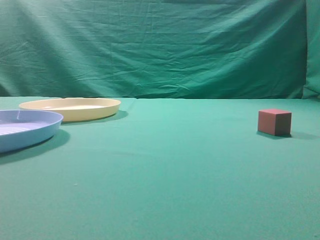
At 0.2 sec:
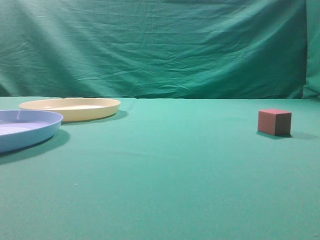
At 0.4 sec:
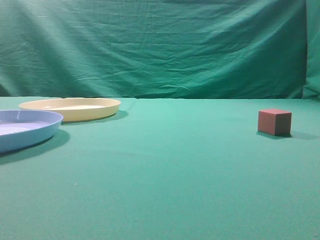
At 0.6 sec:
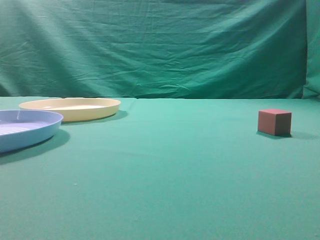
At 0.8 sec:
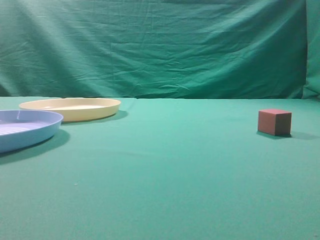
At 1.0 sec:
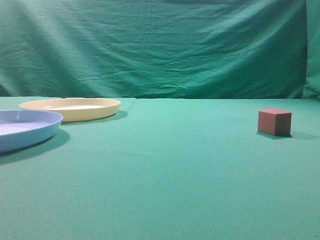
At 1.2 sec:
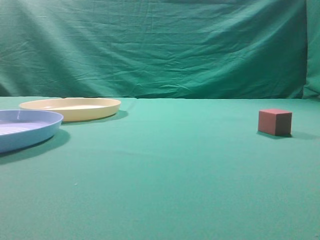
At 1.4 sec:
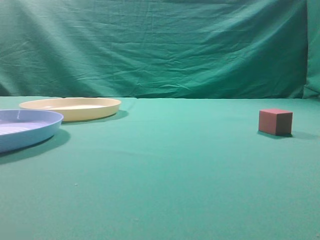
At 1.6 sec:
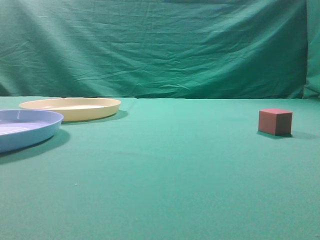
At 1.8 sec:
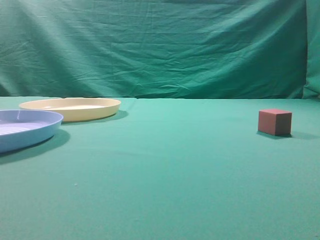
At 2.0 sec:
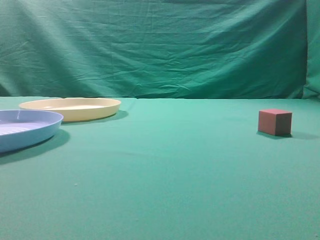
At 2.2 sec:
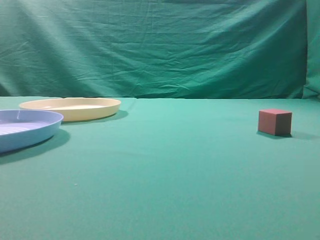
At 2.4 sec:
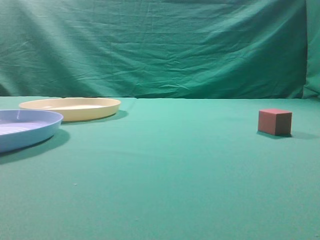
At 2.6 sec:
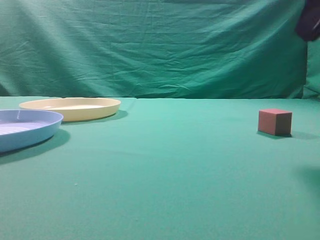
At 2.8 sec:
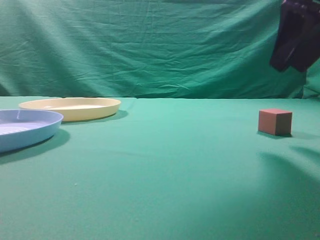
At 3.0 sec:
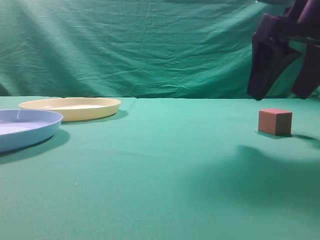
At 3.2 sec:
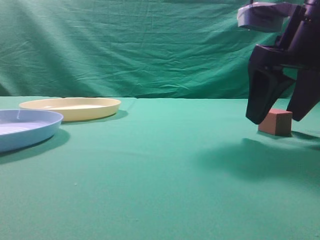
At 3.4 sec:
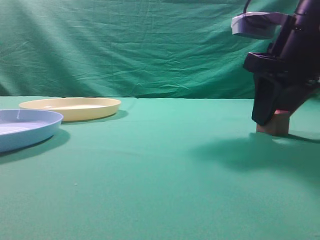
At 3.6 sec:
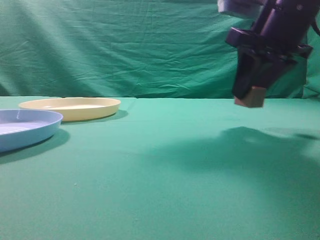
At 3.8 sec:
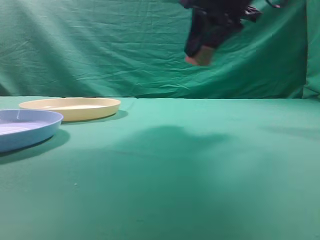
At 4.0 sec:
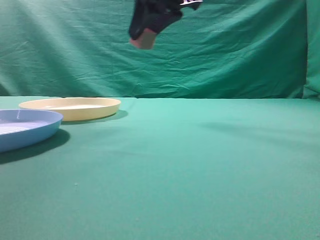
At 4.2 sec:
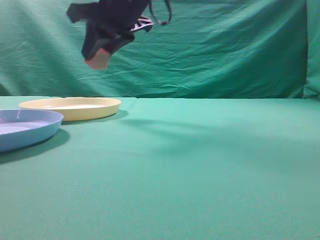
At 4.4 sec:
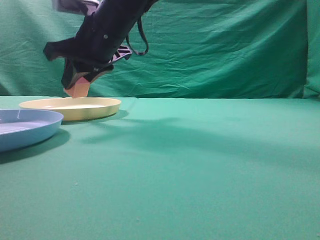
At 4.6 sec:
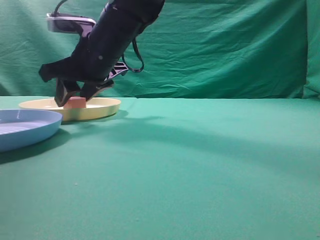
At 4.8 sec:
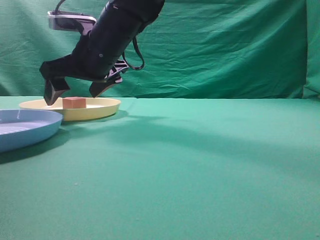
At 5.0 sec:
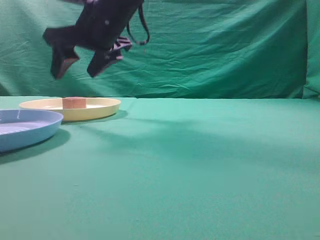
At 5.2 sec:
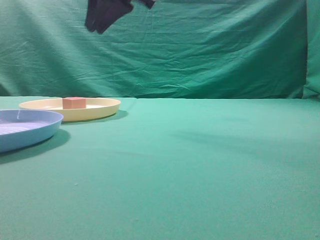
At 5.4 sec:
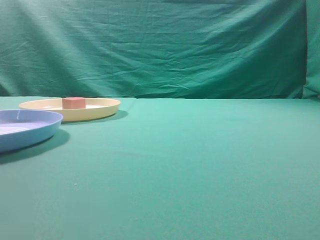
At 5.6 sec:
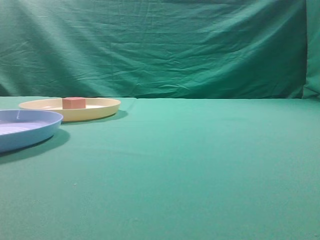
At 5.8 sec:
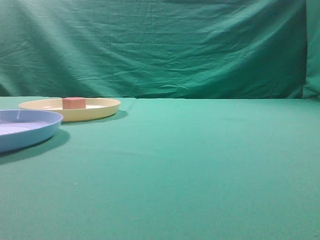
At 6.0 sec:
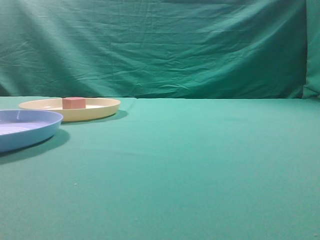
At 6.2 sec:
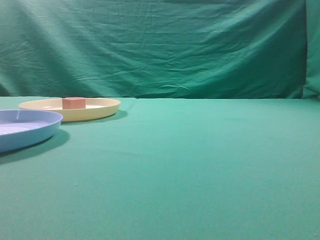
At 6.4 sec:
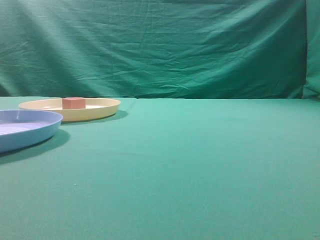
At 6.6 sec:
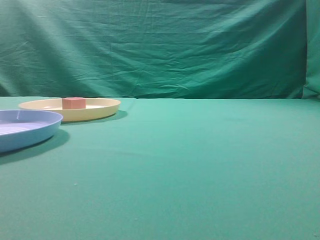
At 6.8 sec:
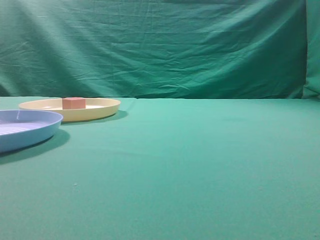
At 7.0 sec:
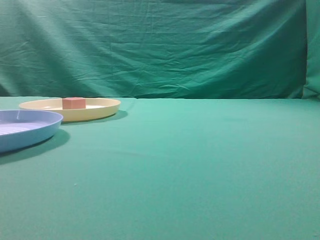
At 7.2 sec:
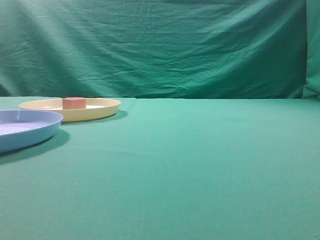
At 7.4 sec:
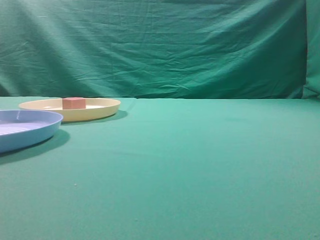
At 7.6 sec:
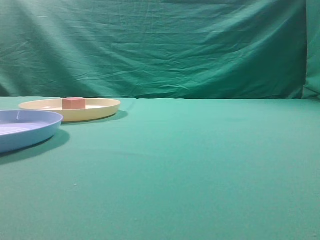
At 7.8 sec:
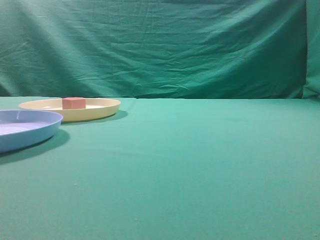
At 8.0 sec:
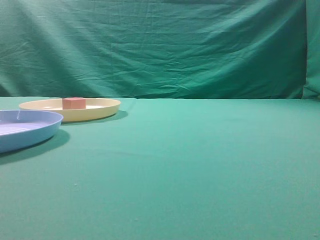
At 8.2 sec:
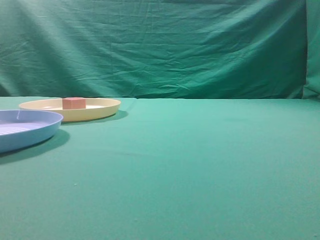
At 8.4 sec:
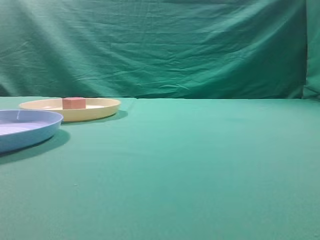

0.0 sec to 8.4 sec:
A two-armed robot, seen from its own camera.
Task of the whole recording: pick up the cube block from the table and put it on the plate.
Step, 0.0 sec to 3.4 sec: Grasp the small cube on the table.
Step, 3.6 sec to 5.0 sec: Place it into the yellow plate.
1.4 sec to 2.8 sec: The right gripper moves forward and to the left, about 25 cm, and opens up.
2.8 sec to 4.2 sec: The right gripper goes about 25 cm to the left and forward, and opens, then closes again.
4.2 sec to 5.6 sec: The right gripper heads upward and to the right, covering roughly 25 cm, and closes its fingers.

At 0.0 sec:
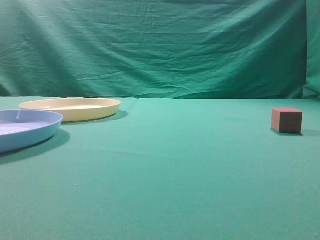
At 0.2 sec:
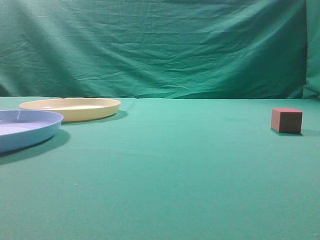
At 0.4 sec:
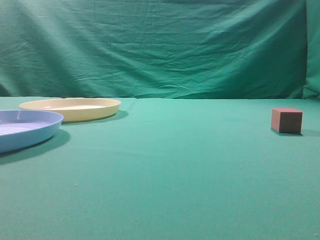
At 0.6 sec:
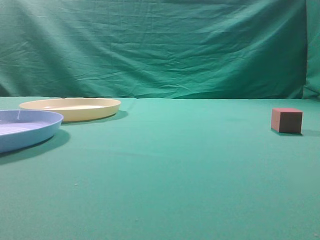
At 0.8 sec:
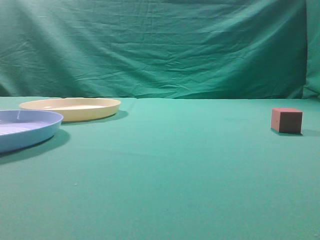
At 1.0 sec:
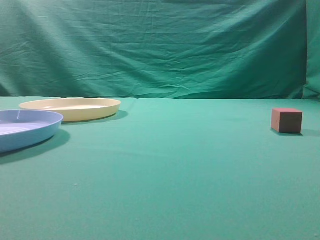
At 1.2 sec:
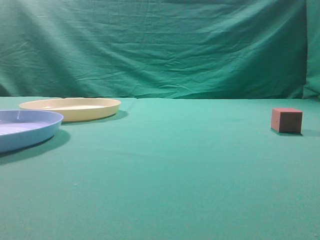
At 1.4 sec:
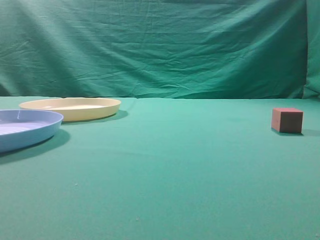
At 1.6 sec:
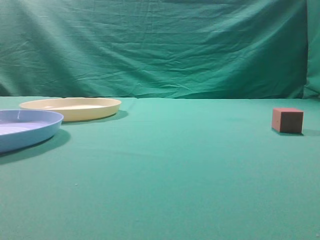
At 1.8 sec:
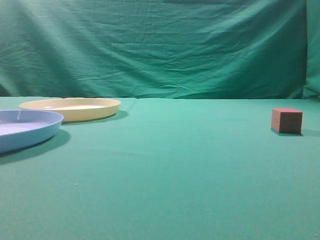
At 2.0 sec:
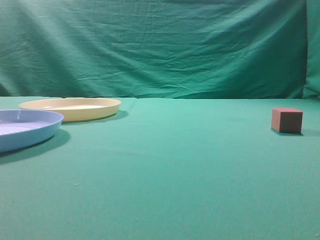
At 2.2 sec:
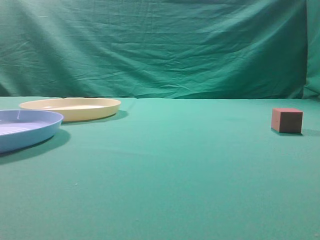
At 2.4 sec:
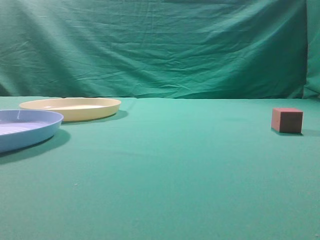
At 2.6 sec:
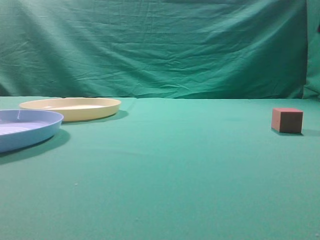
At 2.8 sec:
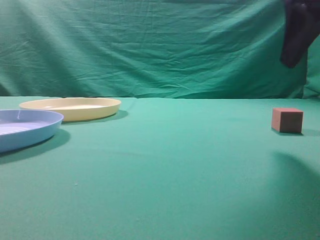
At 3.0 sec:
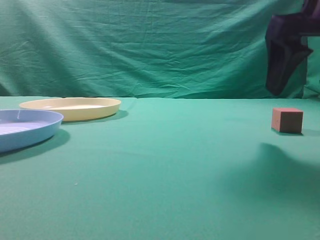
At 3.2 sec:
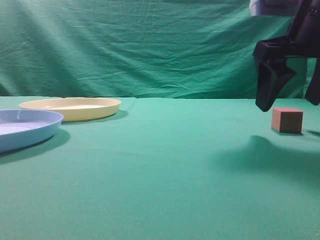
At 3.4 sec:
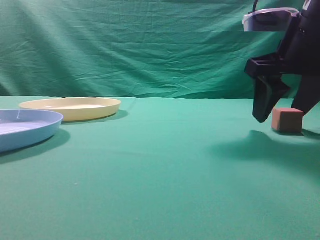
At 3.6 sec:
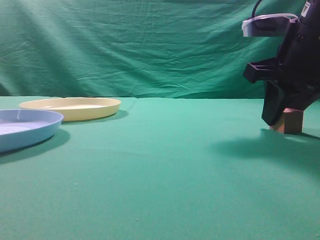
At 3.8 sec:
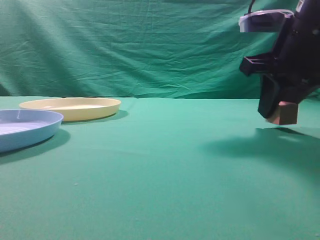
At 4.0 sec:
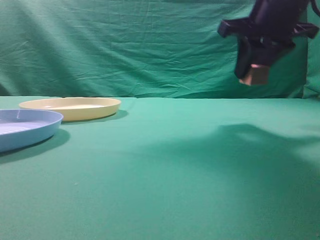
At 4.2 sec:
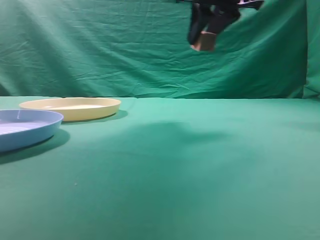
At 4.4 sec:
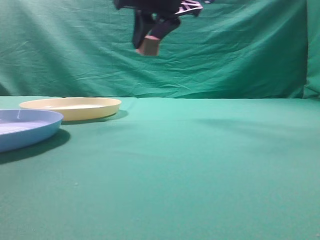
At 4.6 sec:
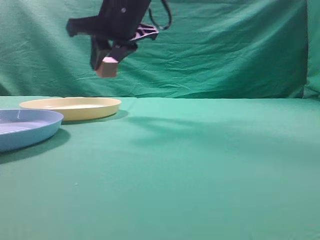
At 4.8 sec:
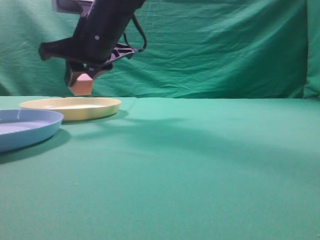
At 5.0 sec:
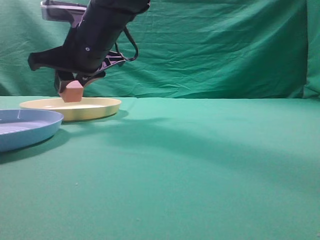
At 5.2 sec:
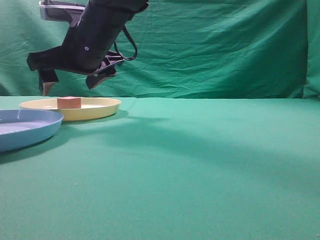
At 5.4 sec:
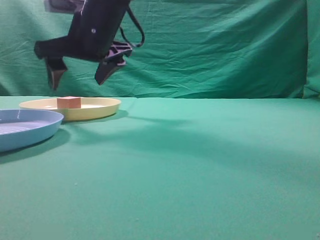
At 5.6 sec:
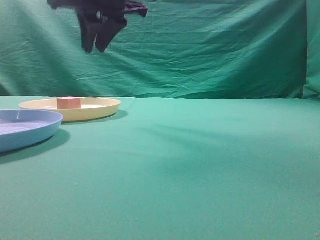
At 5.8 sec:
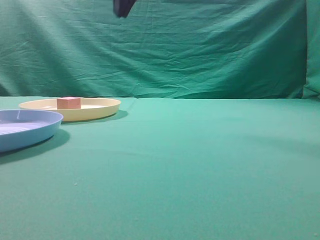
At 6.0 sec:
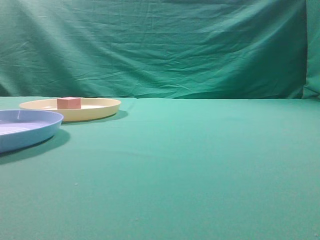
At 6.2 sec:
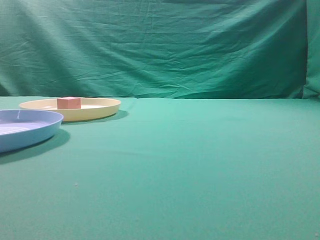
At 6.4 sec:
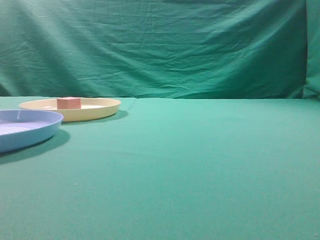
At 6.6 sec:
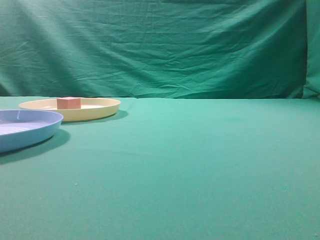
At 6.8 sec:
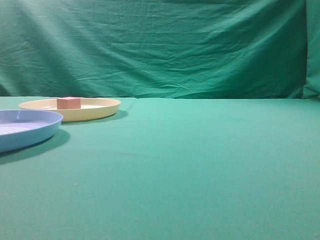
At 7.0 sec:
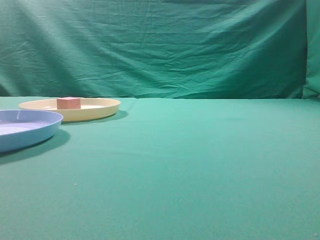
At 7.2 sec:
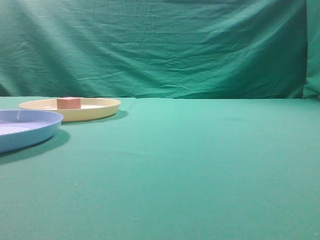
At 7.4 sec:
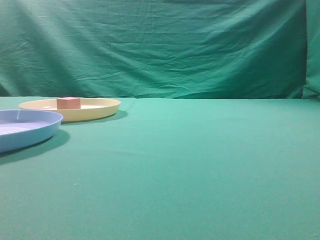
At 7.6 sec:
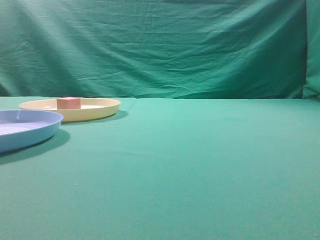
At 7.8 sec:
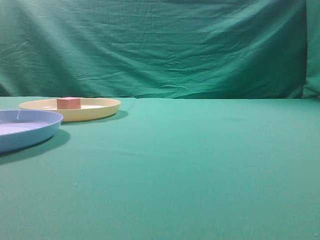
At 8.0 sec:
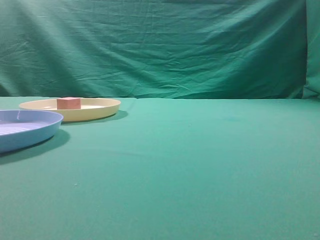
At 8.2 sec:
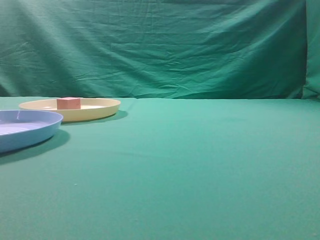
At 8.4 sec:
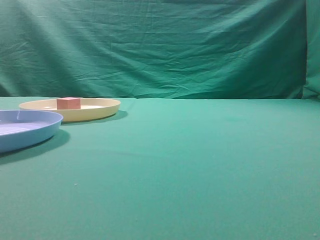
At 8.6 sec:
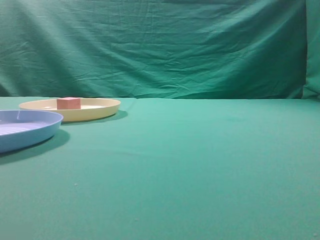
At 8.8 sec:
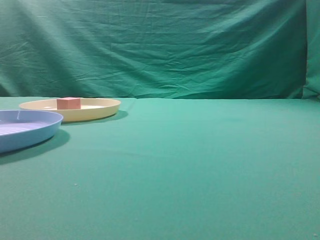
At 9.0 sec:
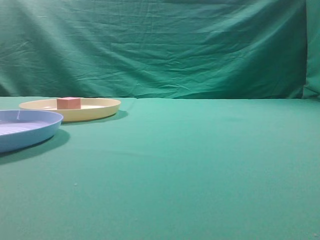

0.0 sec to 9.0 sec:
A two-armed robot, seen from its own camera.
Task of the whole recording: pick up the cube block from the table and put it on the plate.
Step, 0.0 sec to 3.2 sec: Grasp the small cube on the table.
Step, 3.4 sec to 4.4 sec: Place it into the yellow plate.
1.6 sec to 3.0 sec: The right gripper shifts about 25 cm forward, and opens its fingers.
3.0 sec to 4.4 sec: The right gripper moves to the left and forward, about 20 cm, and closes its fingers.
4.4 sec to 6.0 sec: The right gripper shifts approximately 15 cm upward and backward, and closes up.
